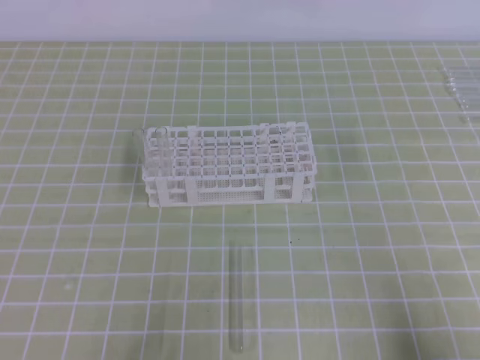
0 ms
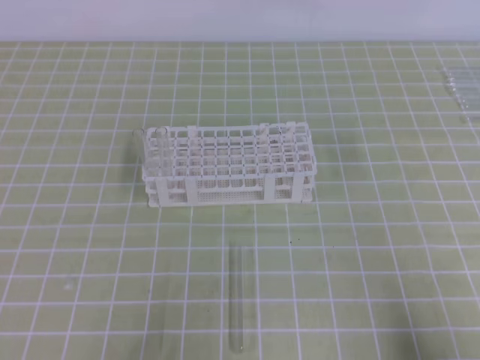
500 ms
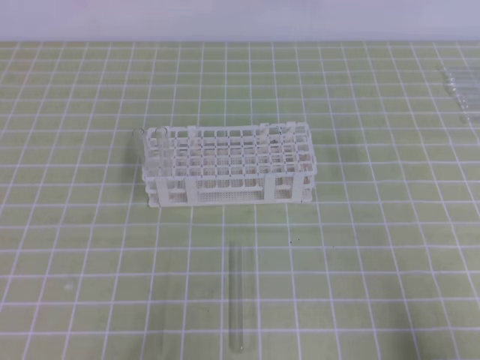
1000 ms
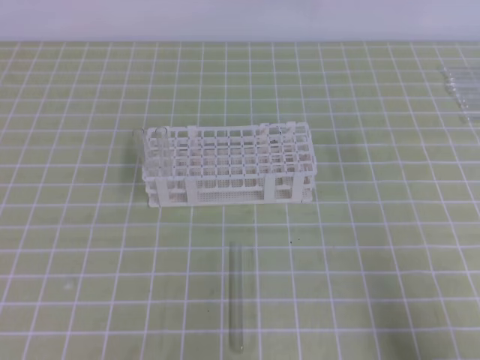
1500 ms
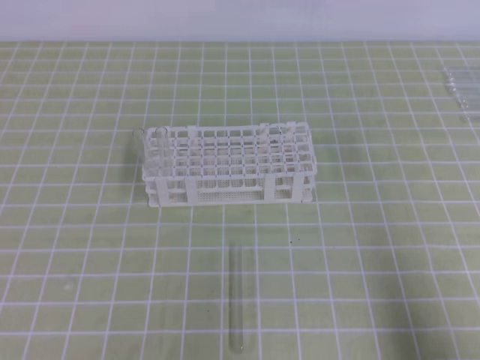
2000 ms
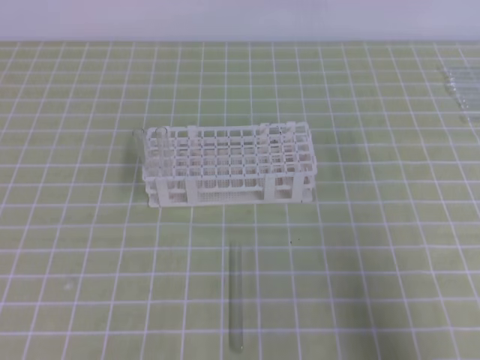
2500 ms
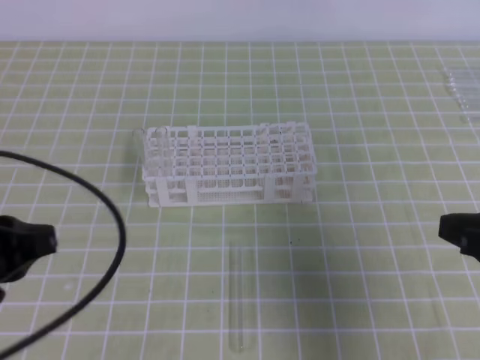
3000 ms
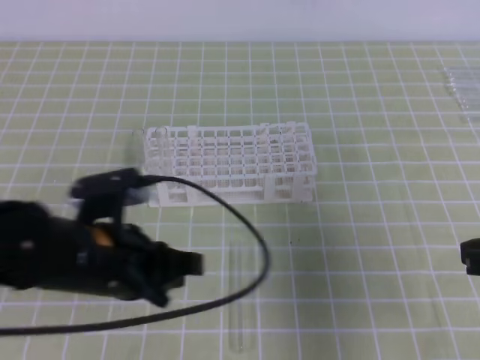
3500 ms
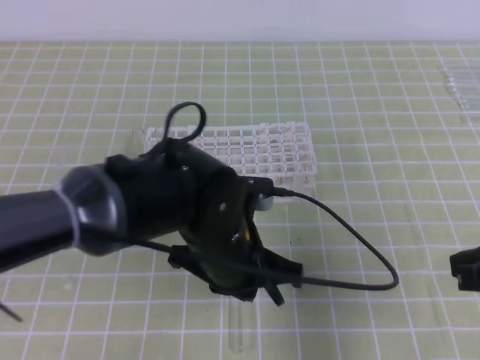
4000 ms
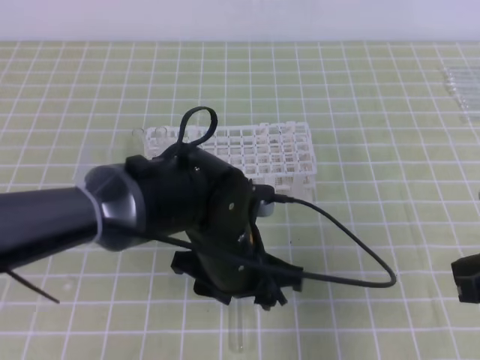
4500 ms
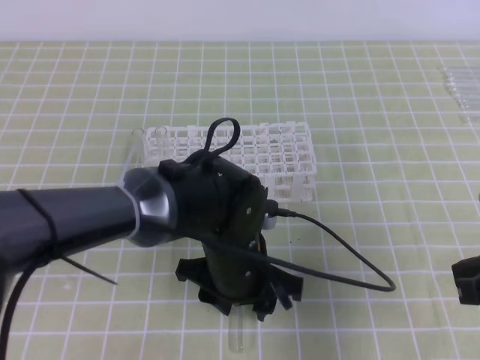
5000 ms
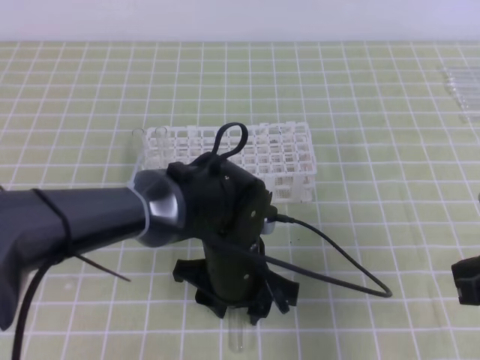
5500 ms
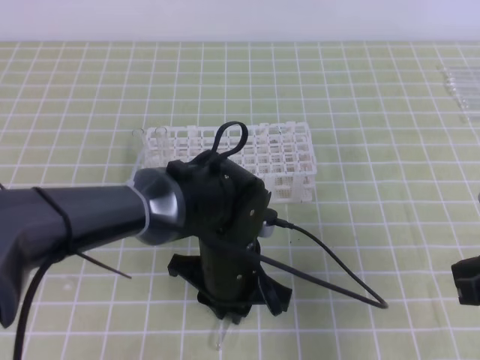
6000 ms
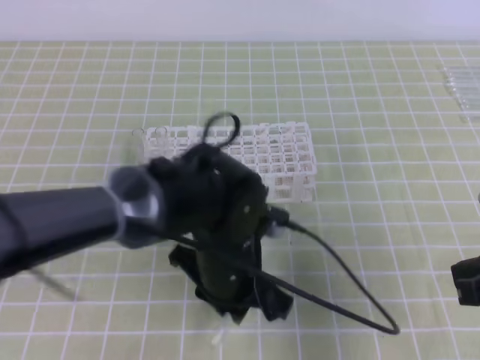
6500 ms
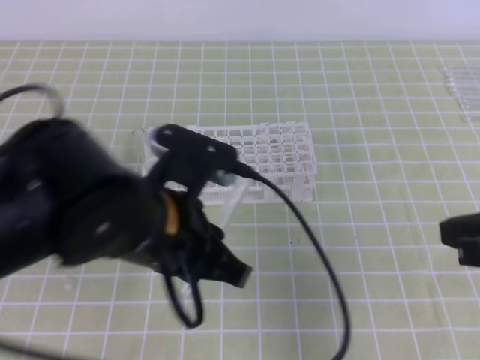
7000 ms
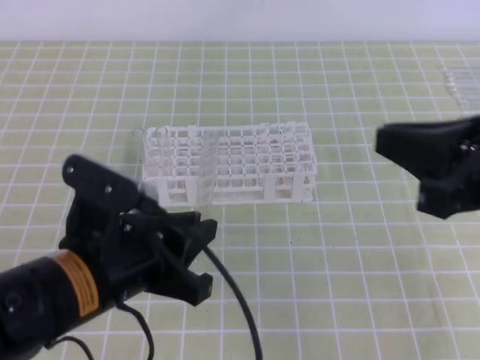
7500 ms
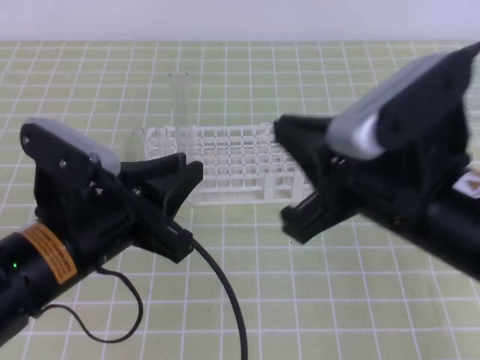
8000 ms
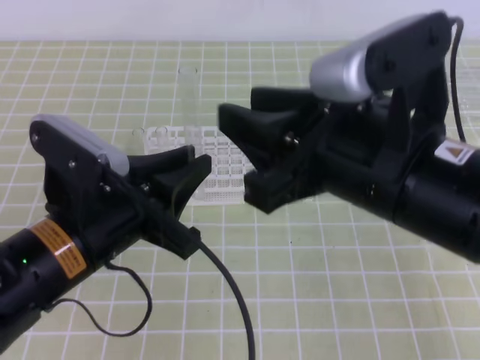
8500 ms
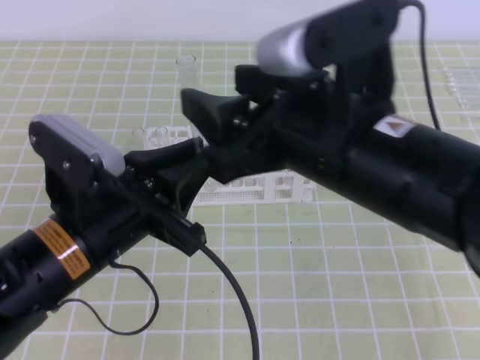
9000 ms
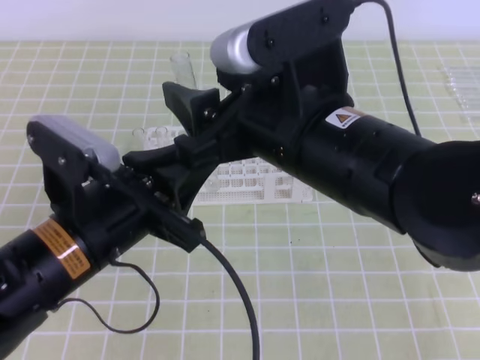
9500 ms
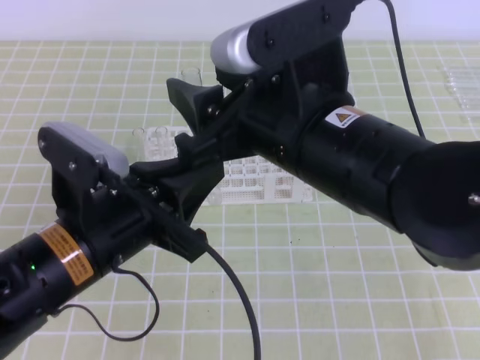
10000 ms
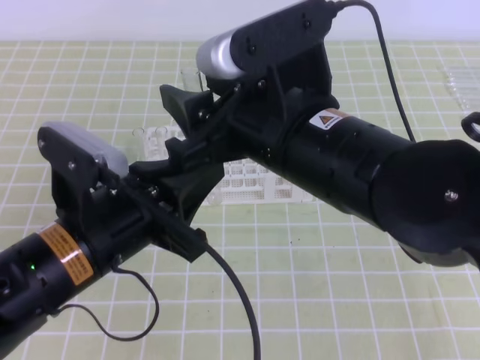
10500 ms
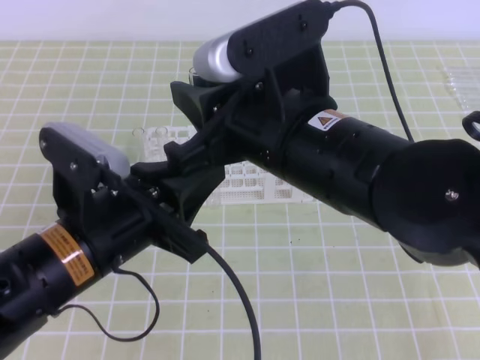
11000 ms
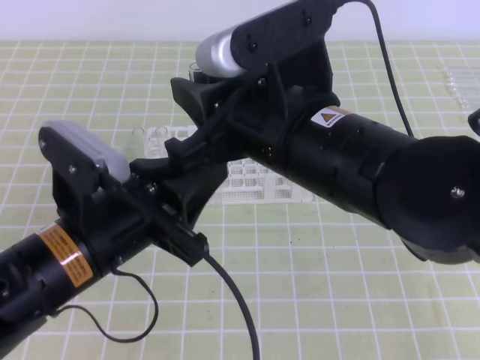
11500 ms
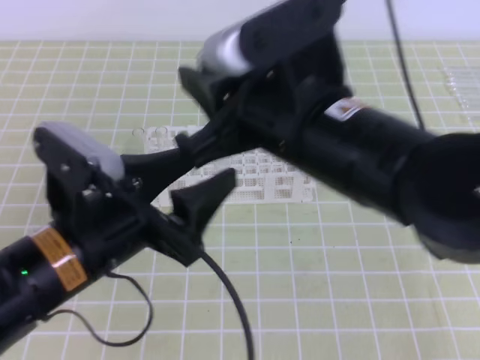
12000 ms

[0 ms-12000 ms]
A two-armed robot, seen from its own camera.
2000 ms to 4000 ms: The right gripper goes about 15 cm forward, to the left and upward. Meanwhile the left gripper shifts about 30 cm to the right and forward.
4000 ms to 6000 ms: The left gripper travels downward by some 5 cm, and opens and closes again.
6000 ms to 8000 ms: The right gripper shifts approximately 15 cm to the left and upward, while the left gripper heads to the left, upward and backward, covering approximately 20 cm.
8000 ms to 10000 ms: The right gripper travels to the left by some 10 cm, and opens its fingers.
10000 ms to 12000 ms: The left gripper opens; the right gripper closes its fingers.

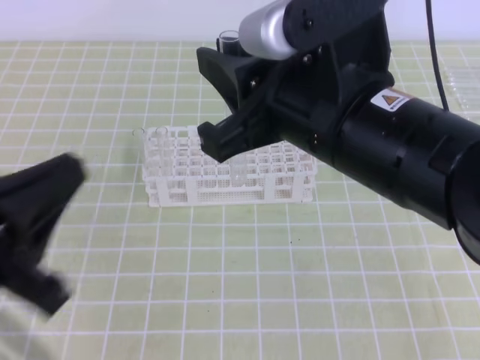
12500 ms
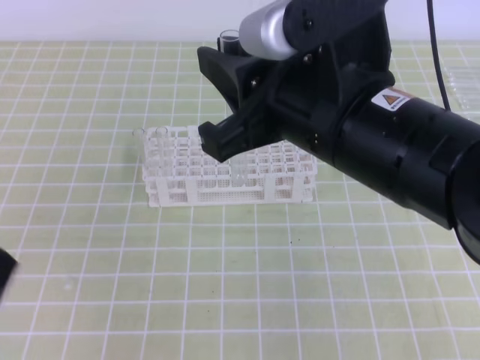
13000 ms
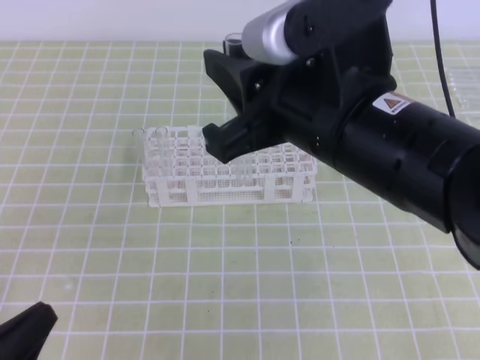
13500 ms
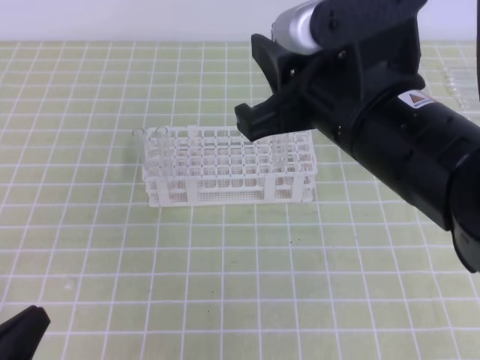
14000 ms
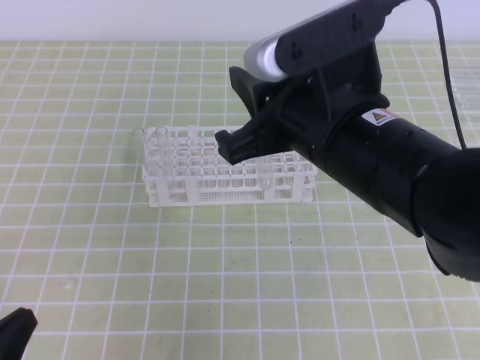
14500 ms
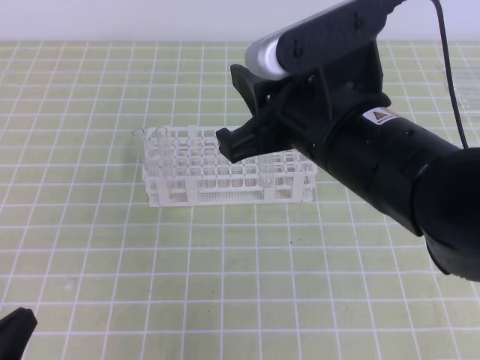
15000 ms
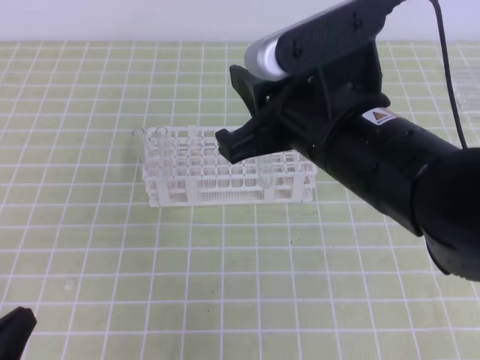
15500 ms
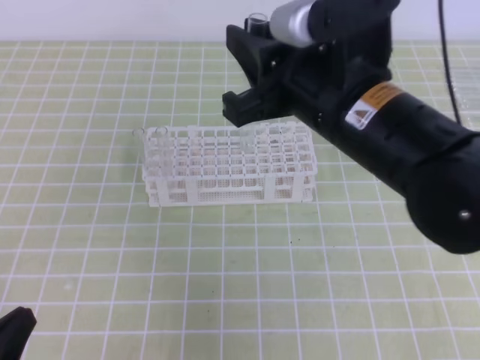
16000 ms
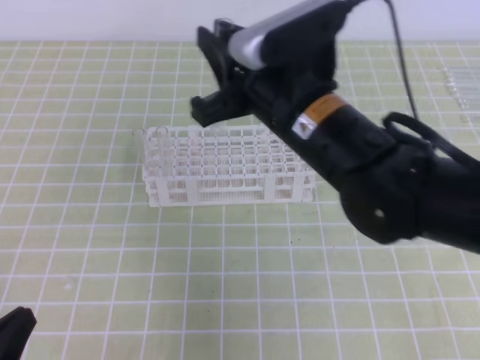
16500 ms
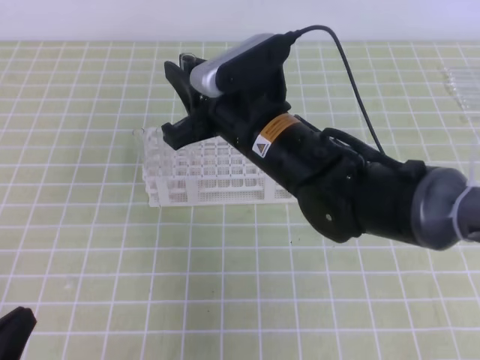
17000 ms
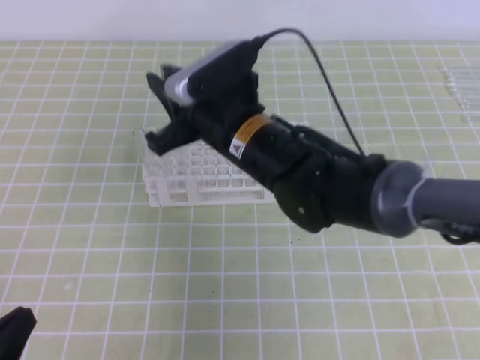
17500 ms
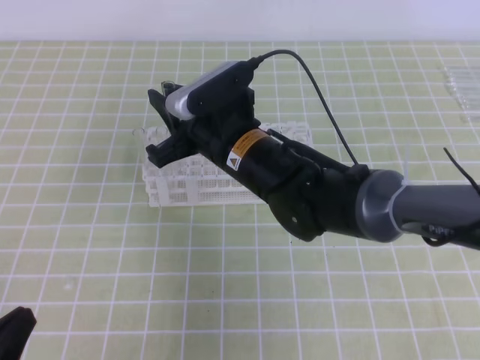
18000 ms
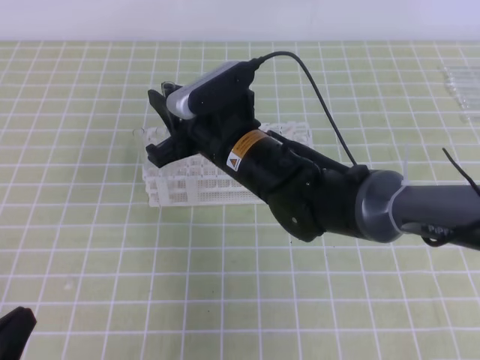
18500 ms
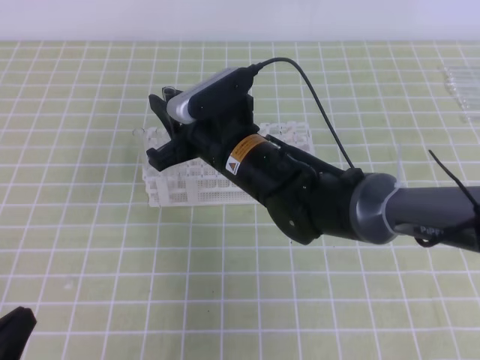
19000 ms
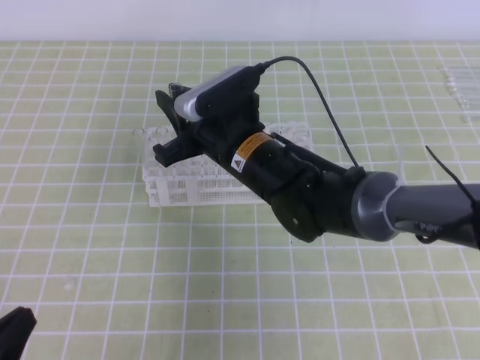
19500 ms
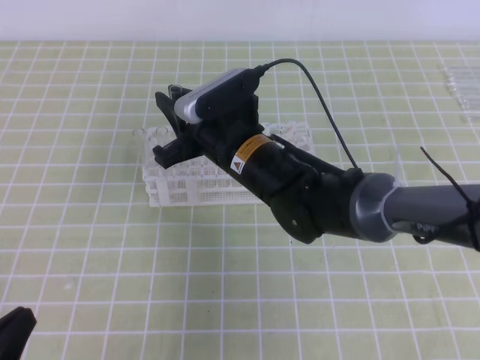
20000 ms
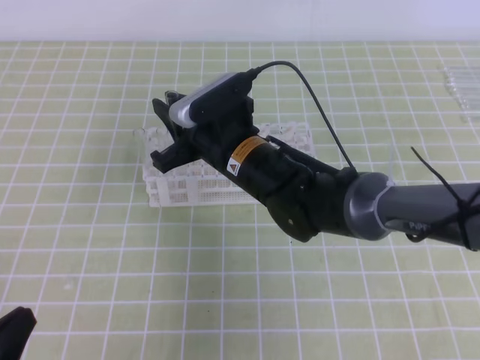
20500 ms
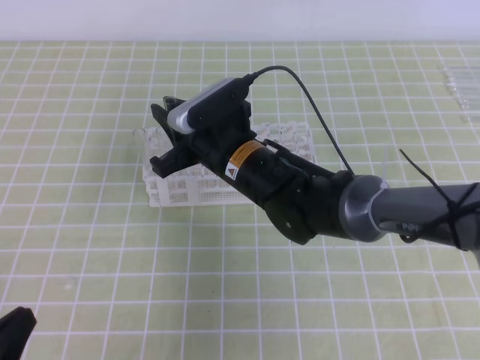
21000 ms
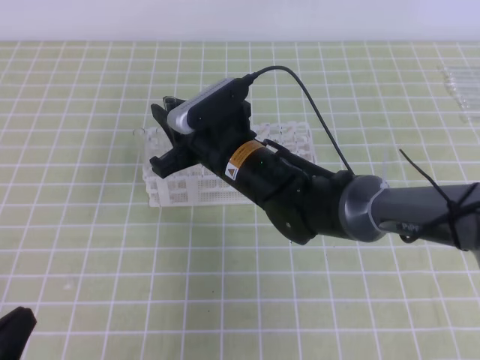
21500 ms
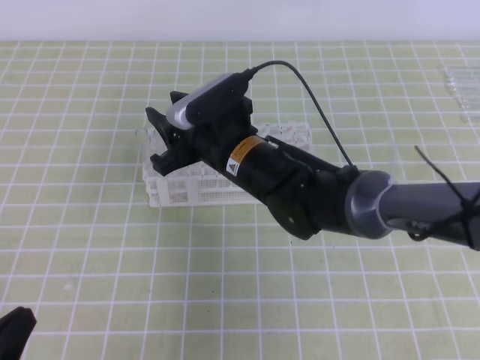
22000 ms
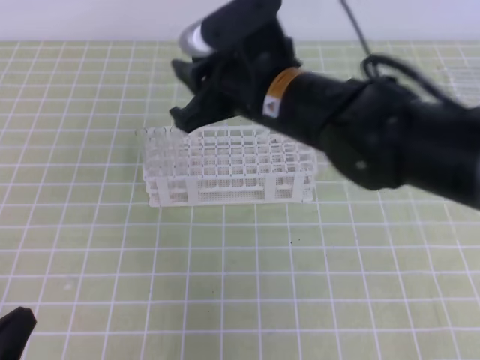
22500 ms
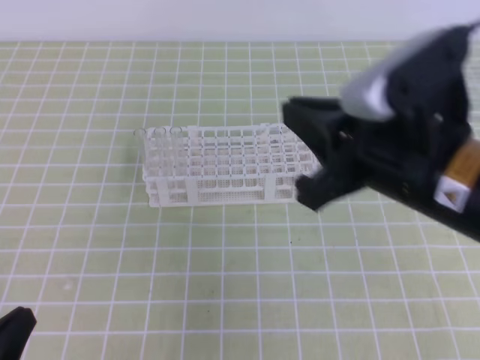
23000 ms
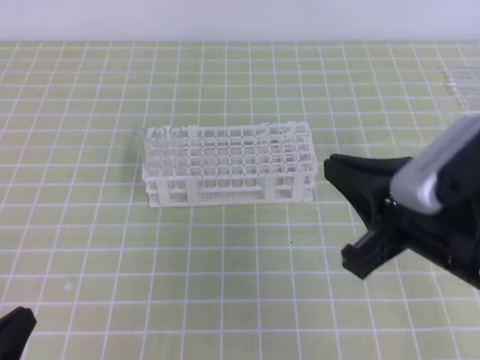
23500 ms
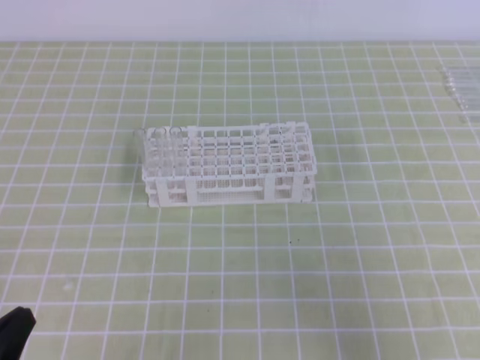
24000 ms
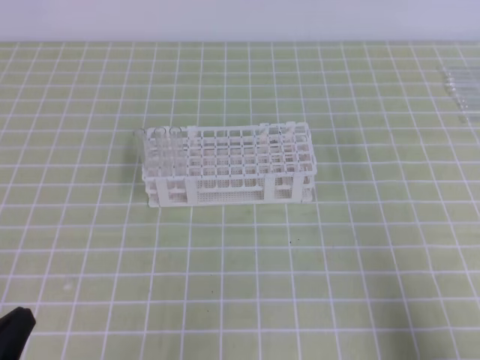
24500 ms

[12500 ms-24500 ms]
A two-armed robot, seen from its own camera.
12500 ms to 14500 ms: The left gripper goes approximately 15 cm downward and to the left.
14500 ms to 16500 ms: The right gripper heads forward, covering about 5 cm.
16500 ms to 18500 ms: The right gripper moves downward, to the left and forward, roughly 10 cm.
18500 ms to 20500 ms: There are only small adjustments of the grippers.
20500 ms to 22500 ms: The right gripper shifts some 10 cm upward.
22500 ms to 24500 ms: The right gripper travels to the right and backward by about 35 cm, and closes.
